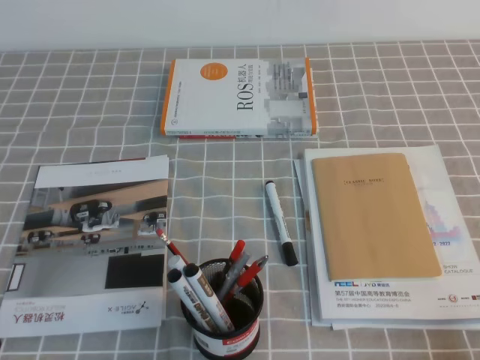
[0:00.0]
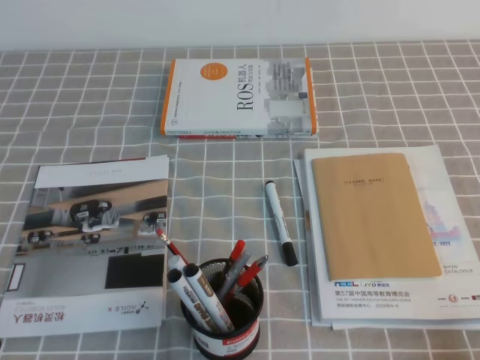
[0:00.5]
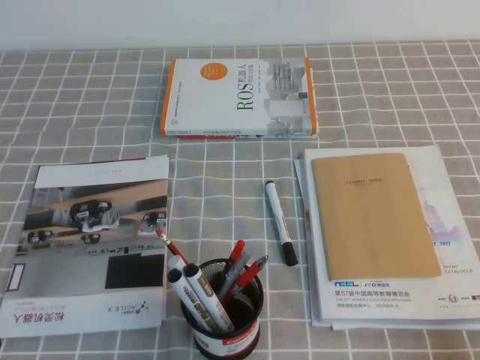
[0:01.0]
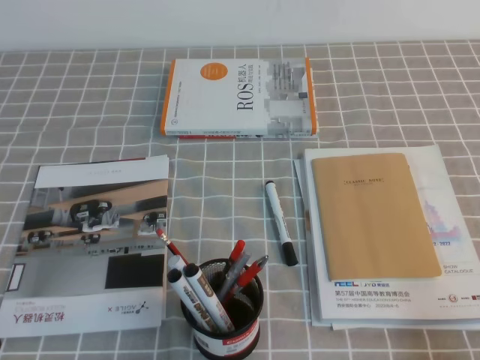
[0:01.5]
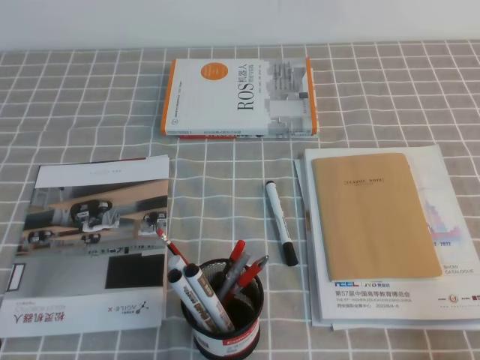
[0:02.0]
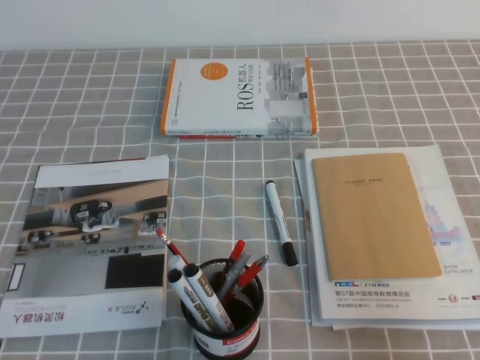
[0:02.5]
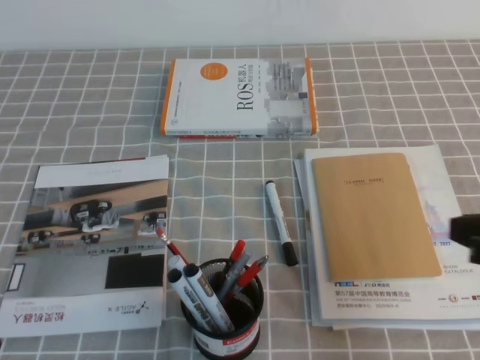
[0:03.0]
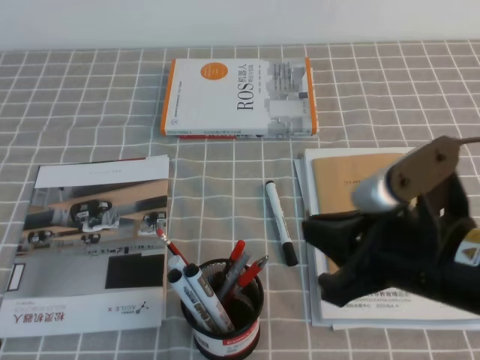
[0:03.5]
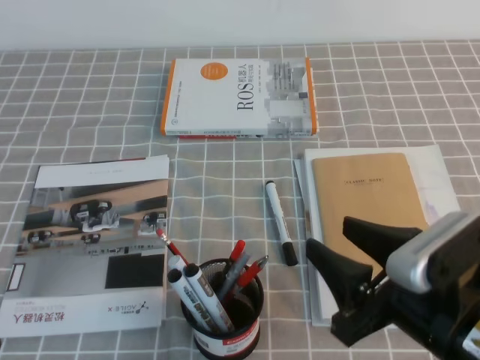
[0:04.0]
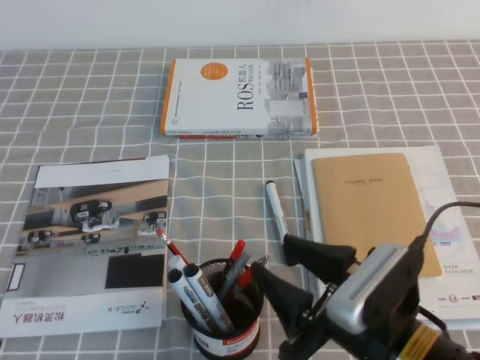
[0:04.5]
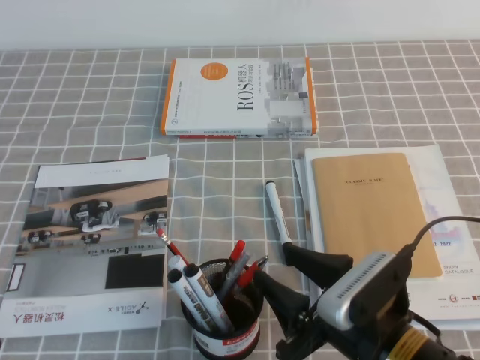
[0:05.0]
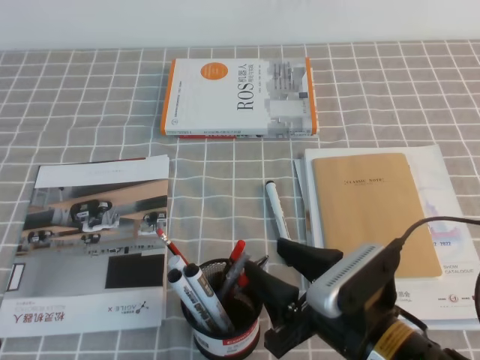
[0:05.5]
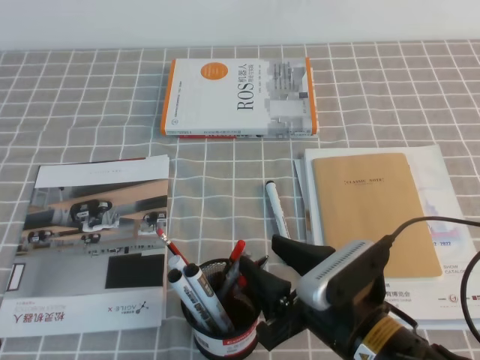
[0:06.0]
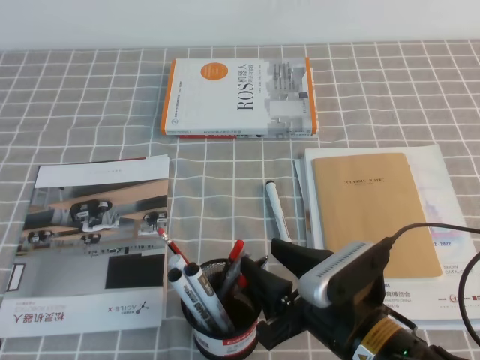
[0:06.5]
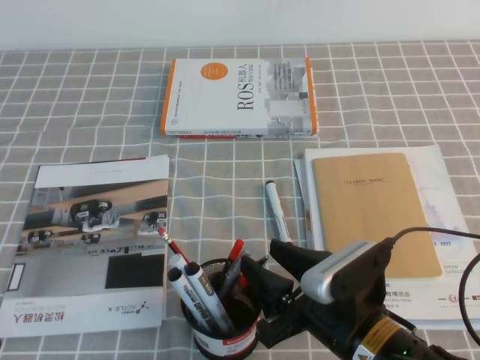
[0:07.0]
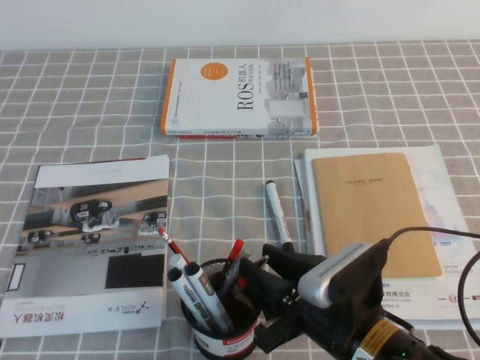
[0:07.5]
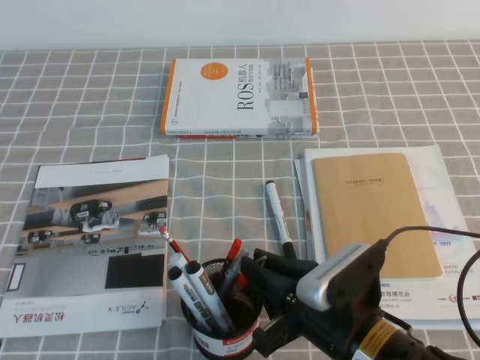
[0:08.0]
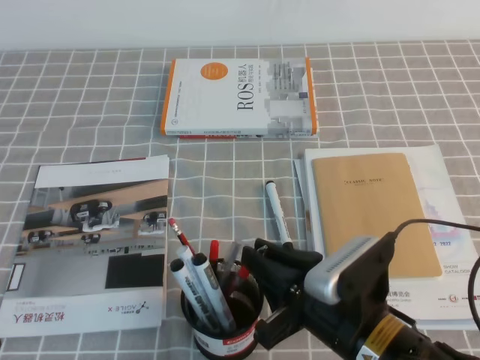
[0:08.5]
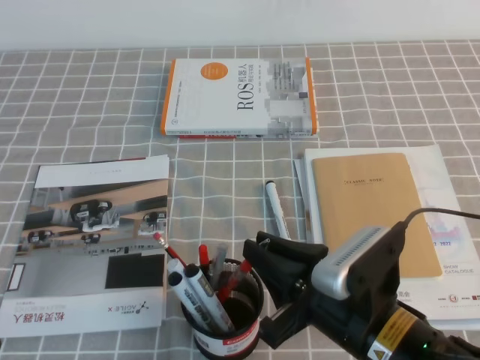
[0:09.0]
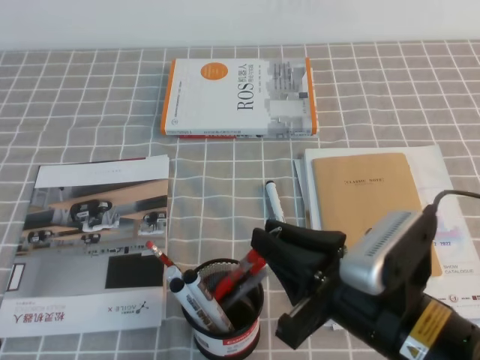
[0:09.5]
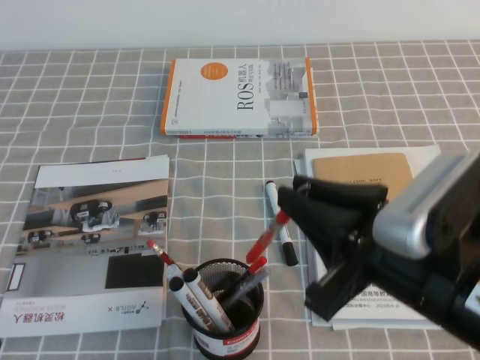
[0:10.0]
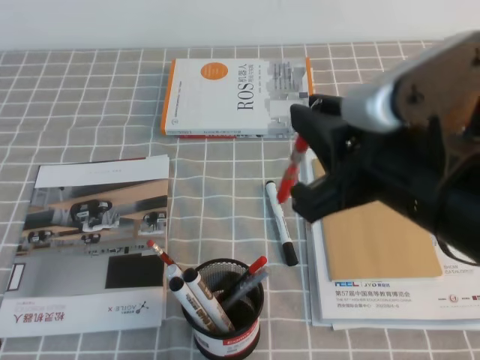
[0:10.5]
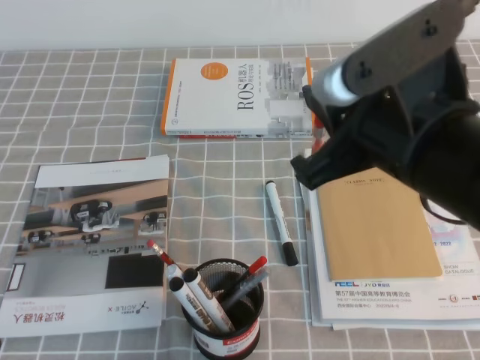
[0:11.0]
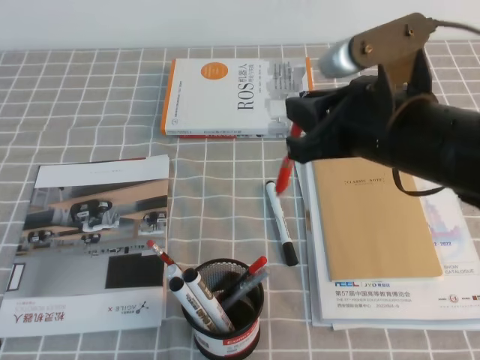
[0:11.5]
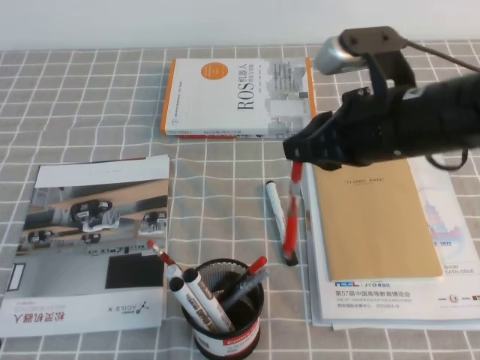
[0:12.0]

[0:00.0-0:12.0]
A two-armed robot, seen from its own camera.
0:02.0 to 0:04.0: The right gripper travels to the left and forward by about 20 cm, and opens its fingers.
0:04.0 to 0:06.0: The right gripper moves downward and to the left, approximately 10 cm.
0:06.0 to 0:08.0: The right gripper closes.
0:08.0 to 0:10.0: The right gripper is displaced upward by roughly 15 cm.
0:10.0 to 0:12.0: The right gripper shifts roughly 15 cm forward.

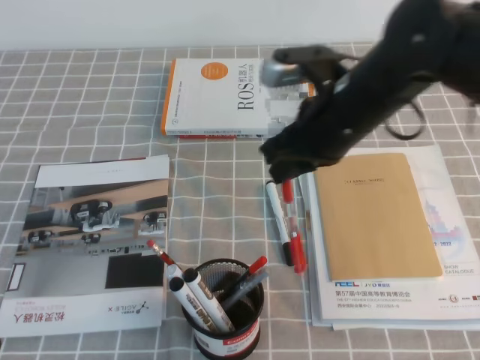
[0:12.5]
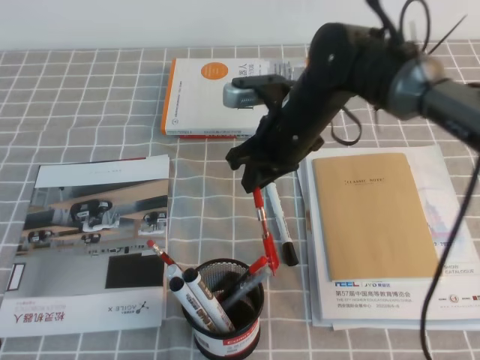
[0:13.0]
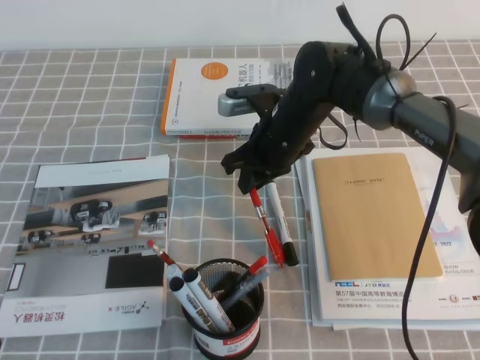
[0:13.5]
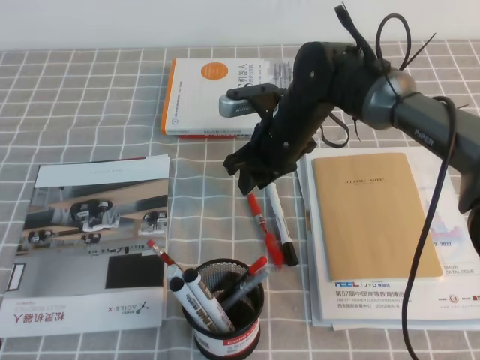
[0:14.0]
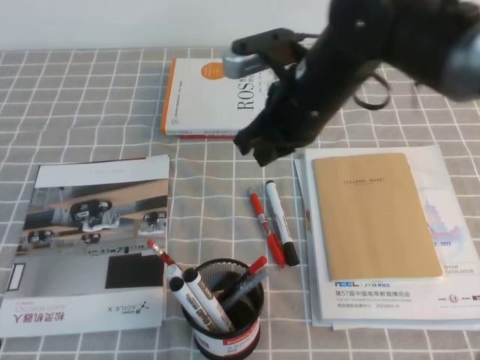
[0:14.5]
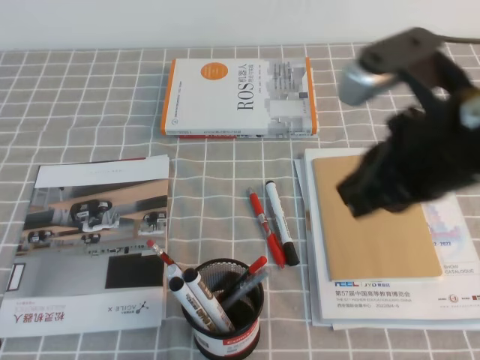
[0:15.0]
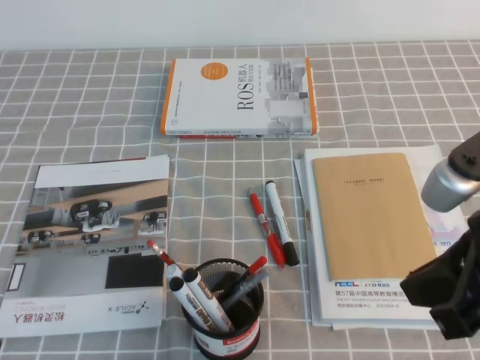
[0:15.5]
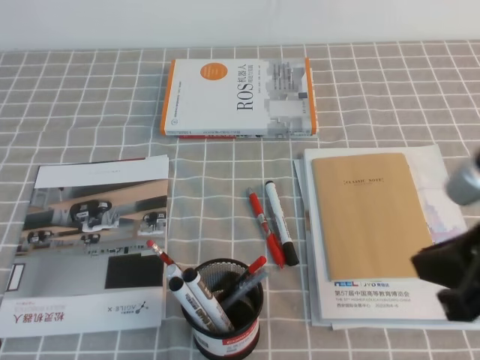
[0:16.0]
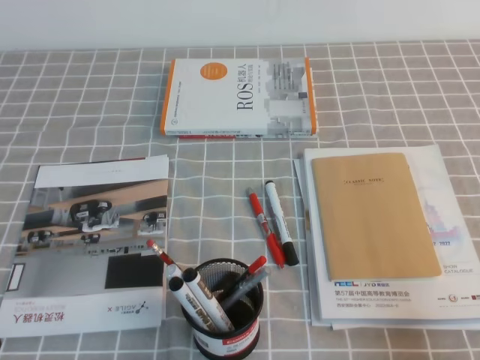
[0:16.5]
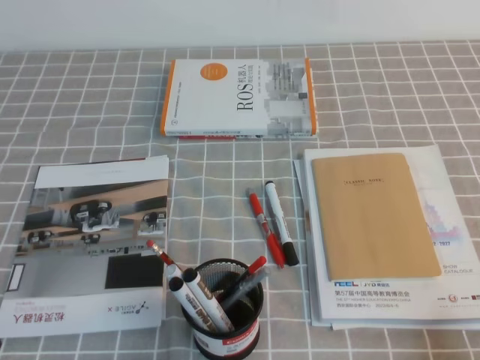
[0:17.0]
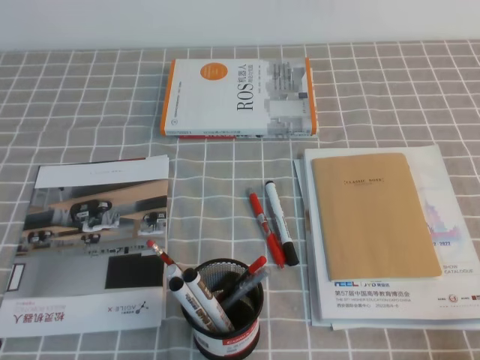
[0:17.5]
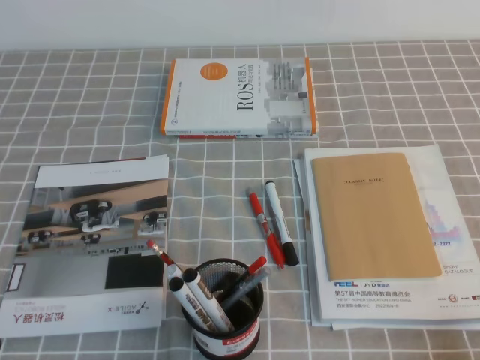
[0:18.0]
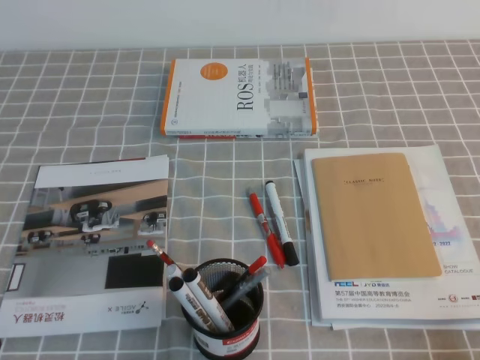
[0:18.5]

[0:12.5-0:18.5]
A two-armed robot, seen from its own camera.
Step, 0:12.5 to 0:18.5: Pick up the pen from the pen holder.
0:12.5 to 0:14.5: The right gripper goes downward and returns, approximately 10 cm each way, and opens, then closes again.
0:14.5 to 0:16.5: The right gripper shifts approximately 35 cm backward and to the right.
0:16.5 to 0:18.5: The right gripper shifts some 5 cm downward.

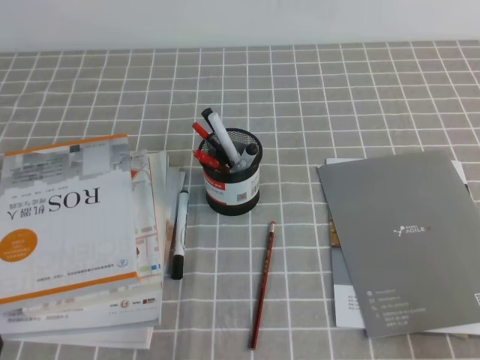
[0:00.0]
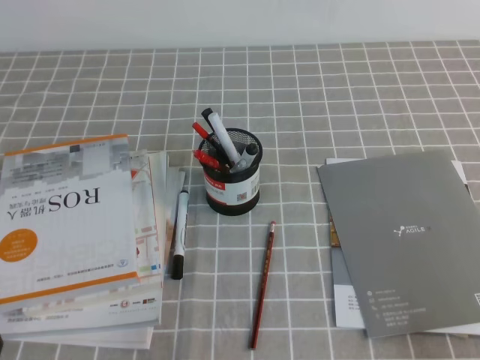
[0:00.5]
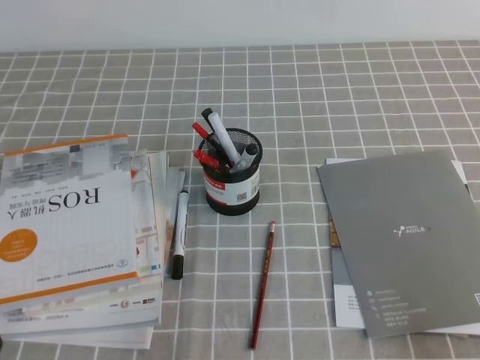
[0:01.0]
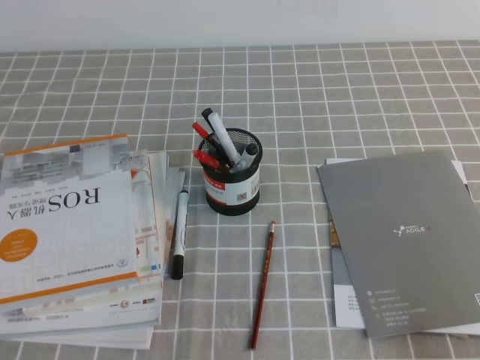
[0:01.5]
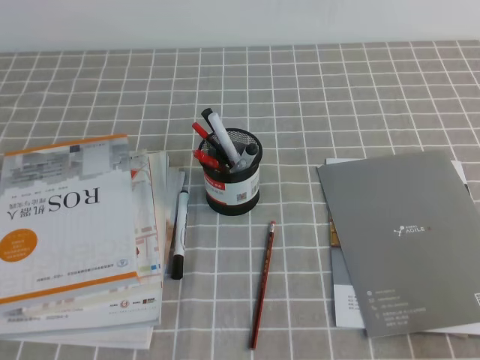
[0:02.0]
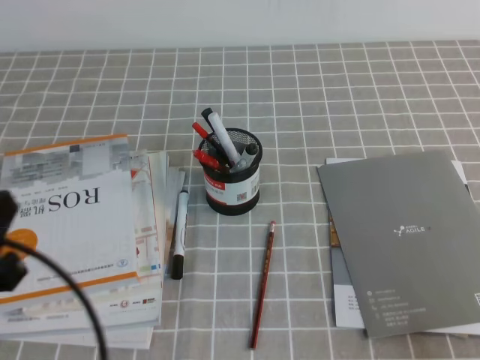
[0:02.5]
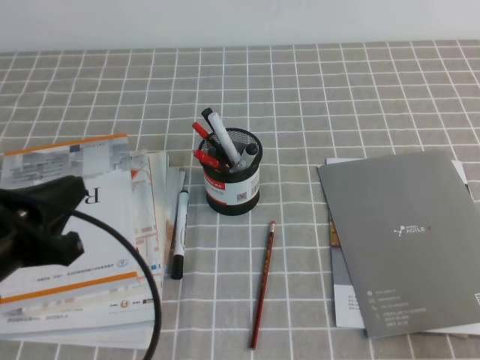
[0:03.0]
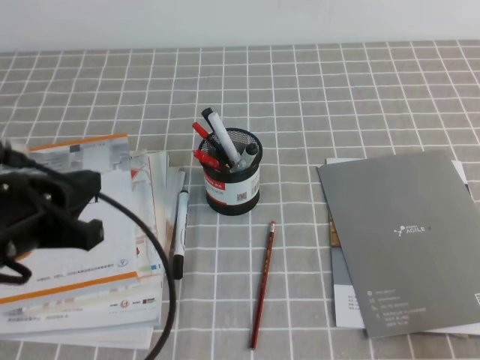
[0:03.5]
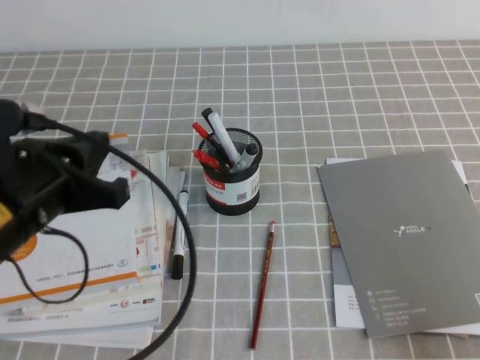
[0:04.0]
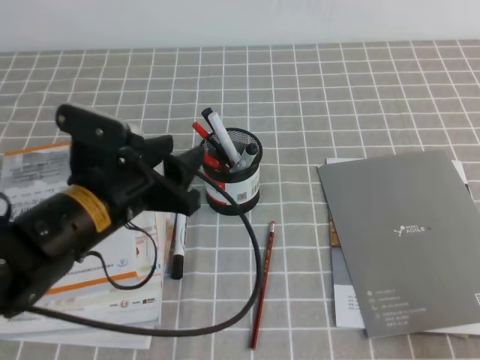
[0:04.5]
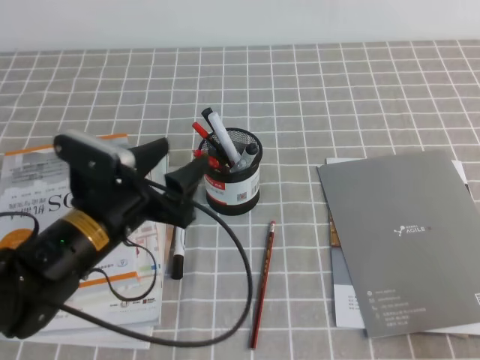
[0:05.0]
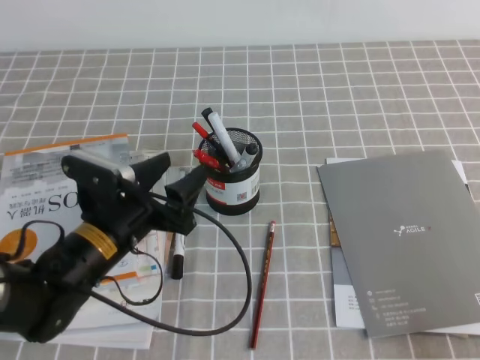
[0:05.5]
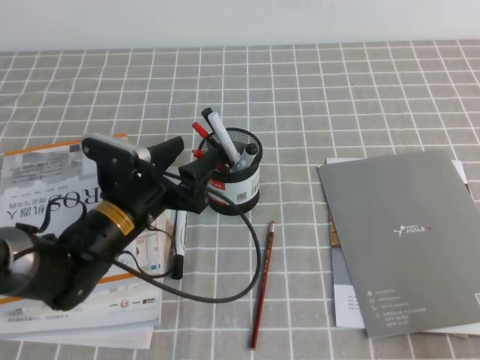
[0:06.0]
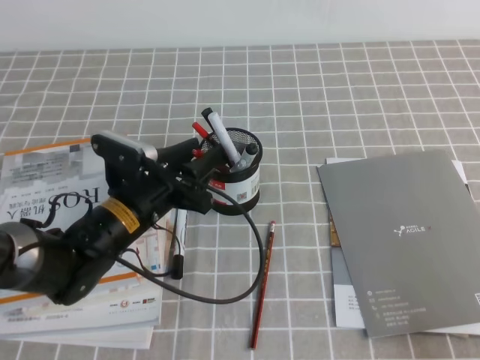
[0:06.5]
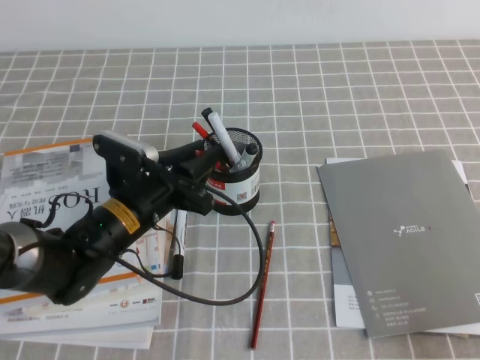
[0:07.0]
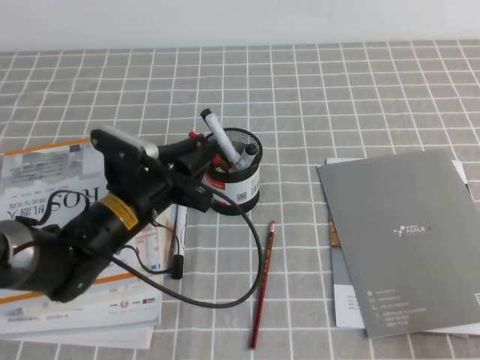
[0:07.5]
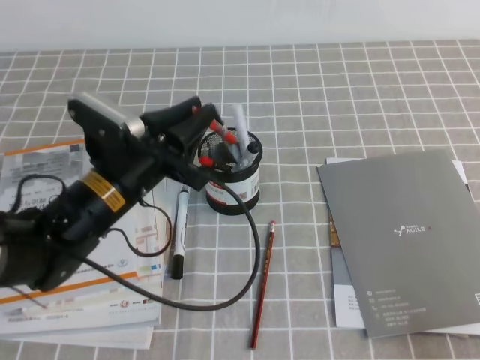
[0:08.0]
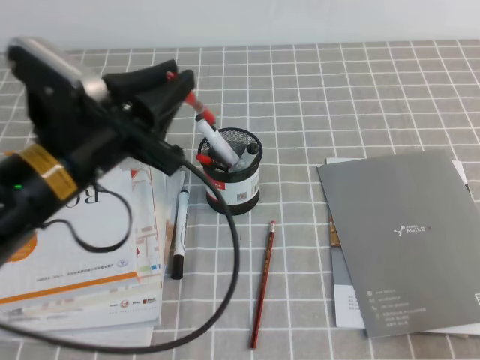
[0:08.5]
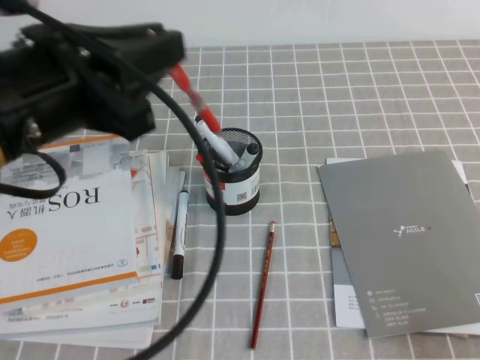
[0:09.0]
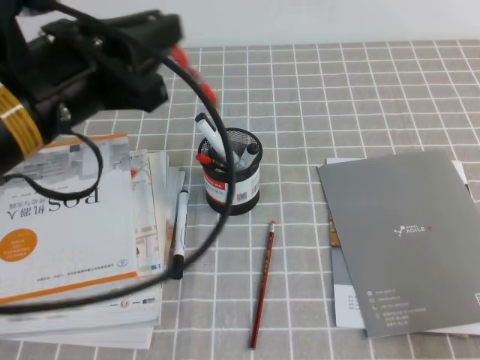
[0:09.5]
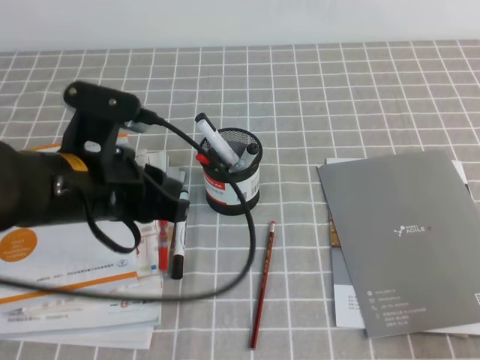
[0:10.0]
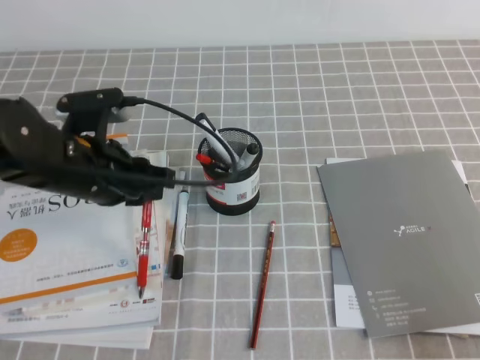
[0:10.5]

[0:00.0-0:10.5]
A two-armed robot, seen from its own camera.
0:02.0 to 0:04.0: The left gripper is displaced forward and to the right by about 15 cm.
0:04.0 to 0:06.5: The left gripper is displaced downward, forward and to the right by some 20 cm, and opens up.
0:06.5 to 0:08.5: The left gripper is displaced upward and backward by approximately 15 cm, and closes up.
0:08.5 to 0:10.5: The left gripper moves roughly 5 cm.
